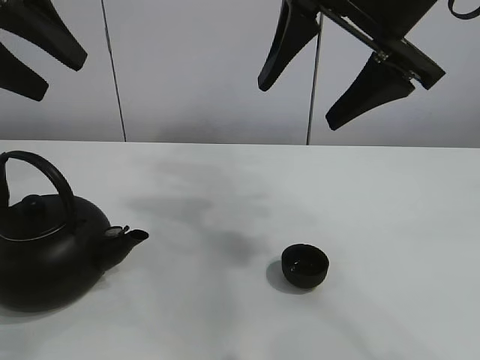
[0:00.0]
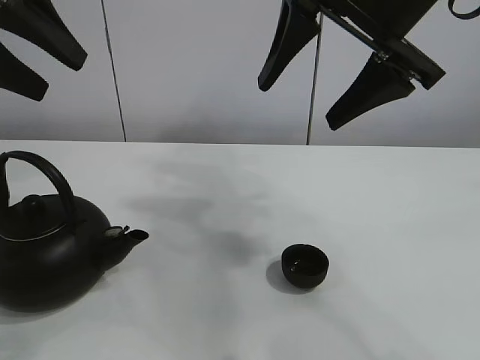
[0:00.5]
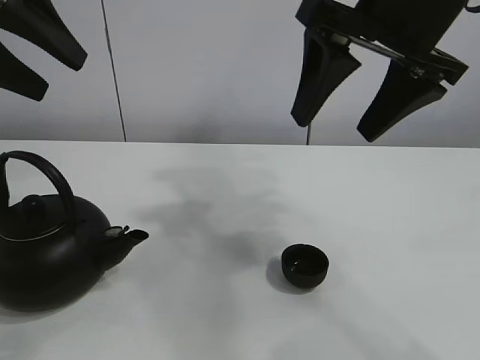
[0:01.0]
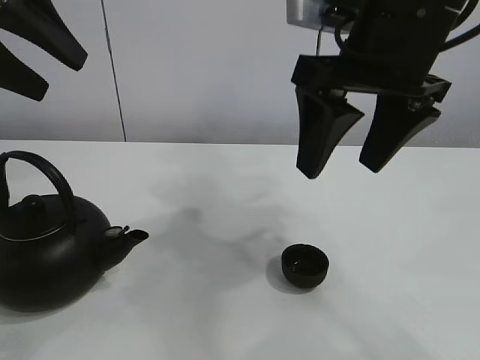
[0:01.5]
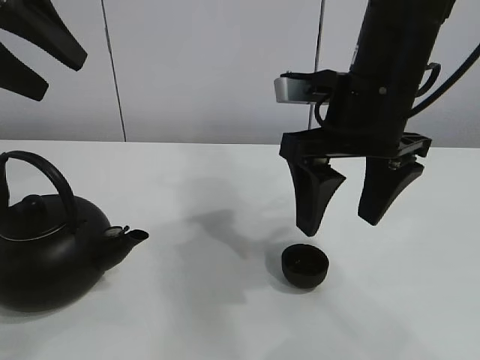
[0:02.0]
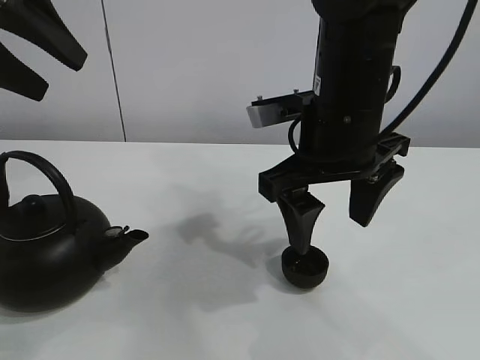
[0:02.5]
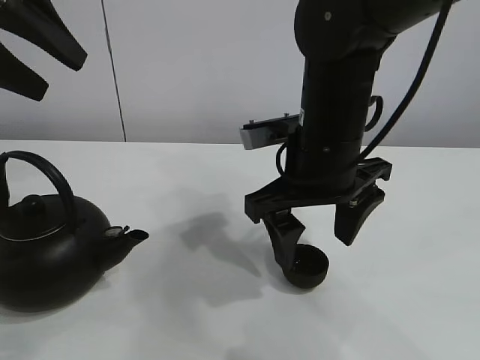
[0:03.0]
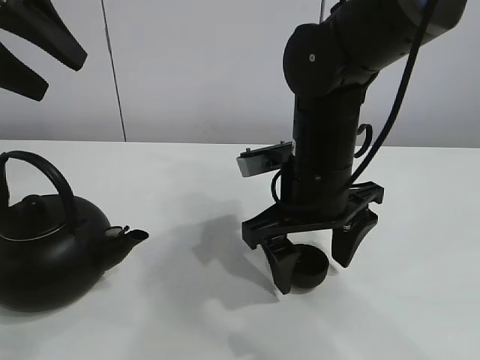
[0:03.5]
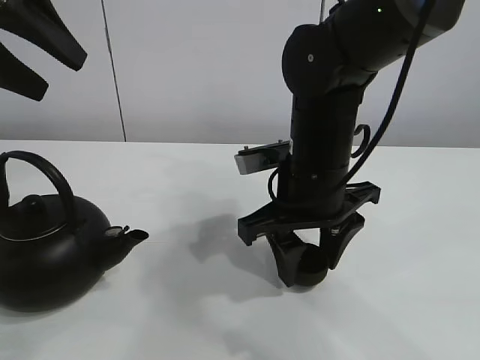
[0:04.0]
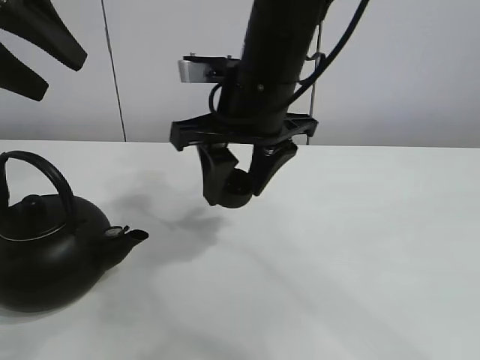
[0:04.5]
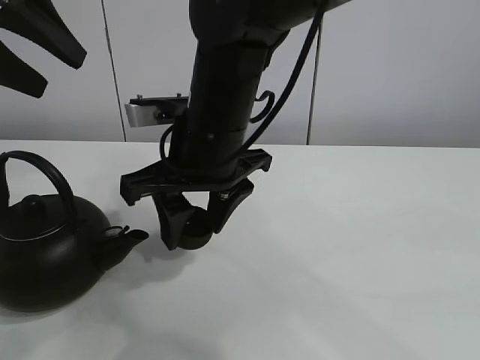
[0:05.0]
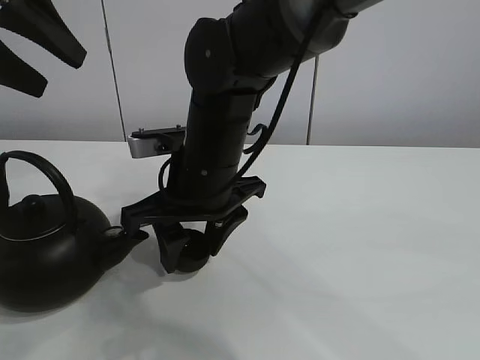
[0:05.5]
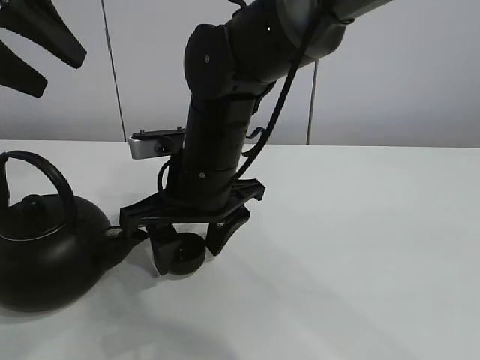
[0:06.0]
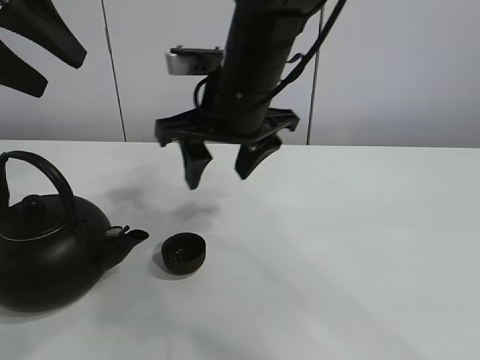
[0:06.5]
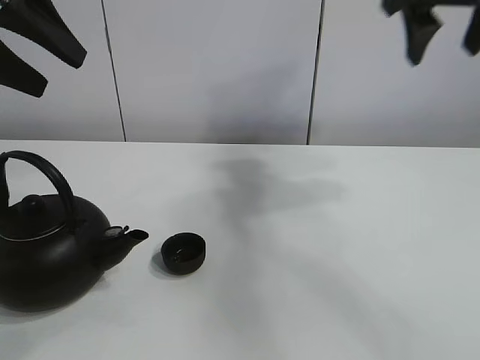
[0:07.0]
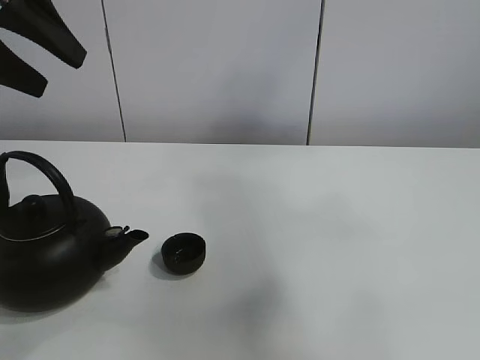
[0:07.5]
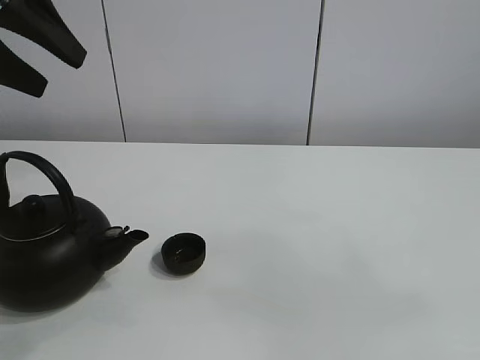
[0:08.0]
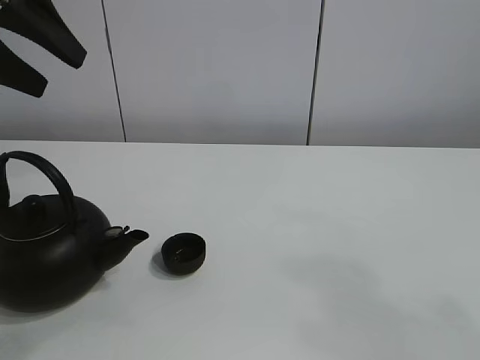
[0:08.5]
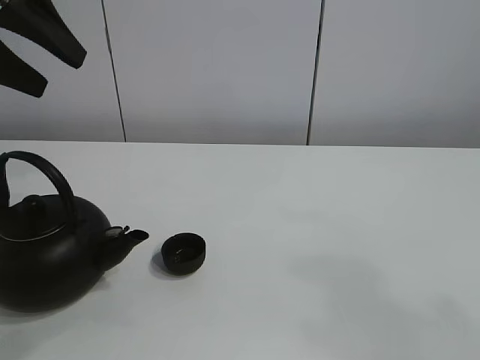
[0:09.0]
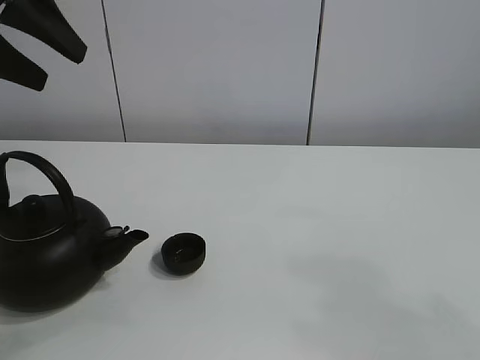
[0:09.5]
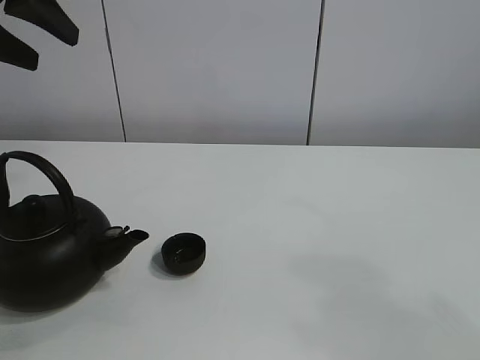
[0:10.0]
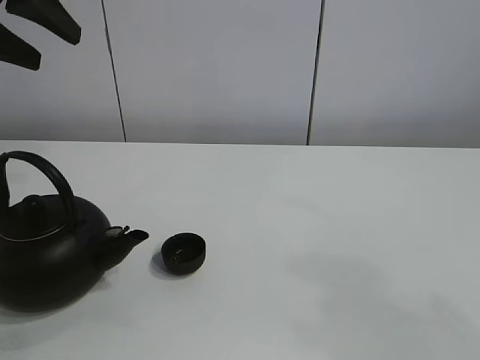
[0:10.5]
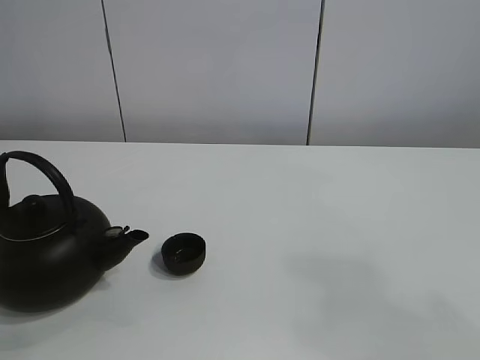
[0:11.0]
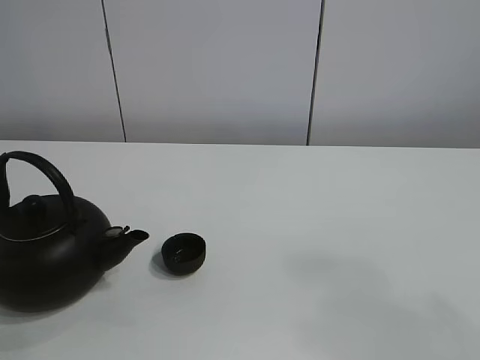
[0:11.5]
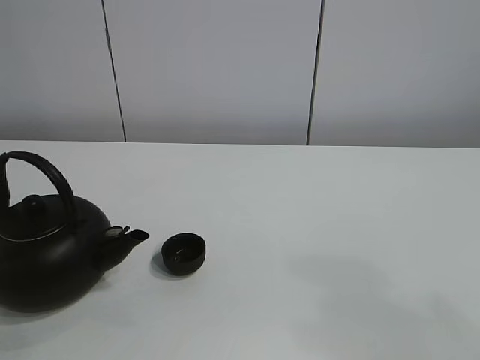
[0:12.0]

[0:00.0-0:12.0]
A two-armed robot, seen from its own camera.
Task of the whole recording: pour tea into the teacup.
Step, 0:00.0 to 0:03.5: Pick up the teacup with the right gripper.
Step, 0:04.5 to 0:05.5: Place the teacup in the center of view with the right gripper.
0:02.0 to 0:04.0: The right gripper heads downward, covering some 10 cm, and closes up.
0:04.0 to 0:06.0: The right gripper is displaced to the left by some 10 cm, and opens.
0:06.0 to 0:08.0: The right gripper travels backward, to the right and upward by some 60 cm.
0:10.0 to 0:12.0: The left gripper travels backward by about 15 cm.

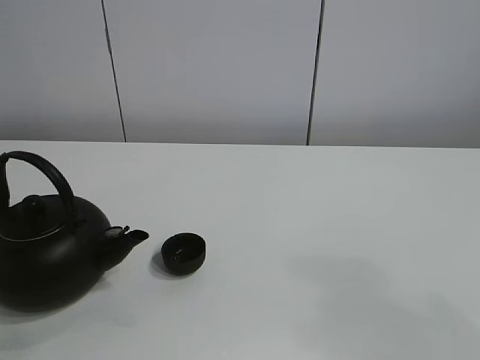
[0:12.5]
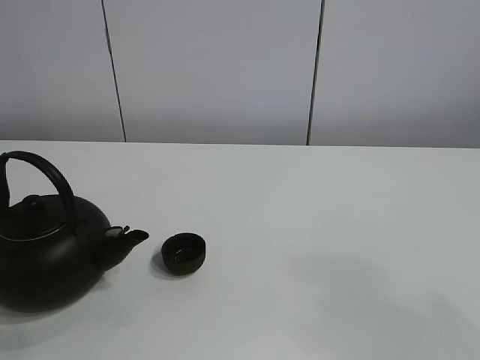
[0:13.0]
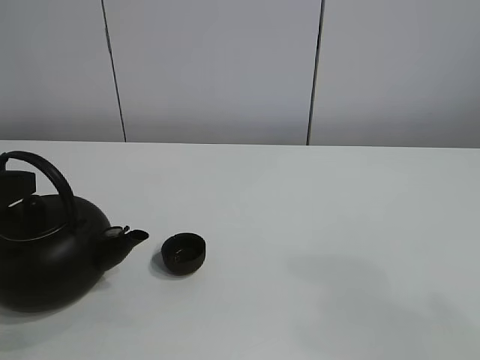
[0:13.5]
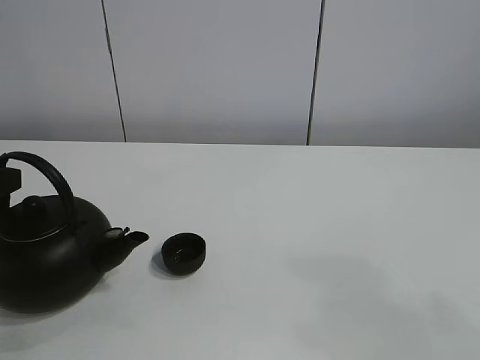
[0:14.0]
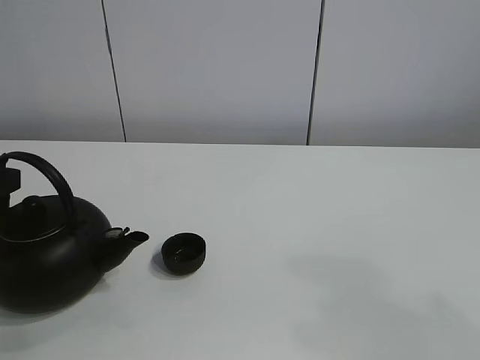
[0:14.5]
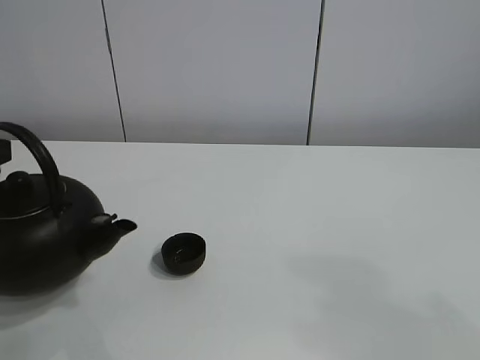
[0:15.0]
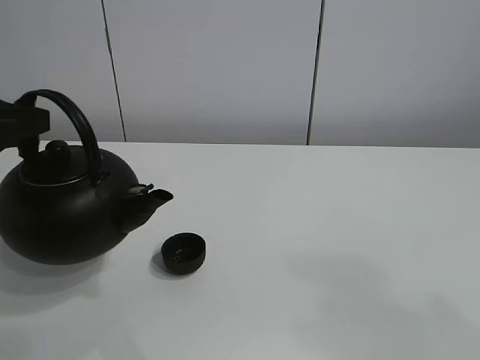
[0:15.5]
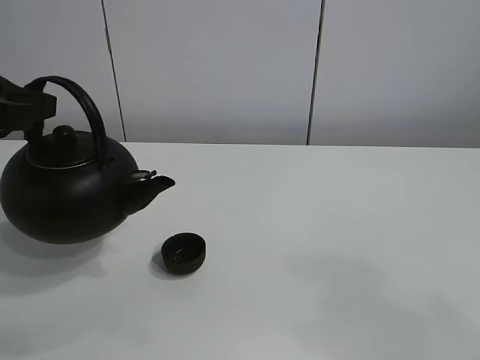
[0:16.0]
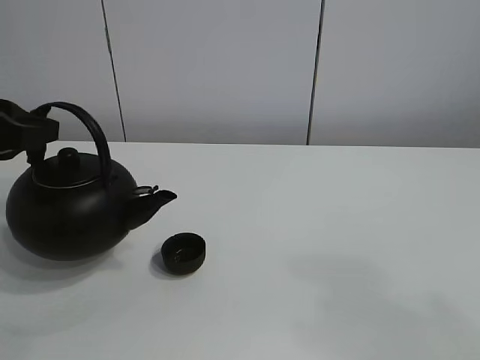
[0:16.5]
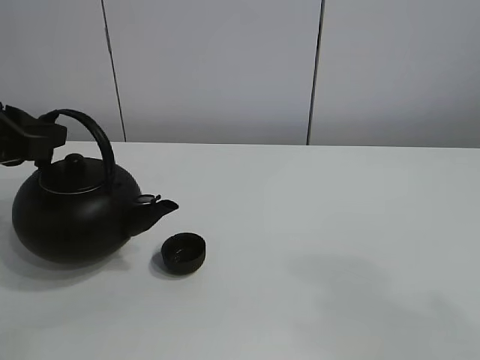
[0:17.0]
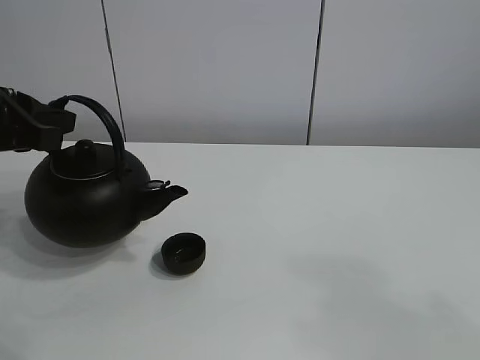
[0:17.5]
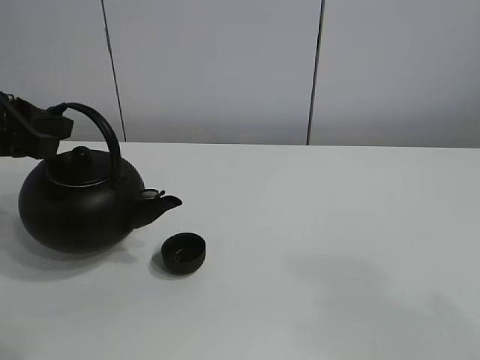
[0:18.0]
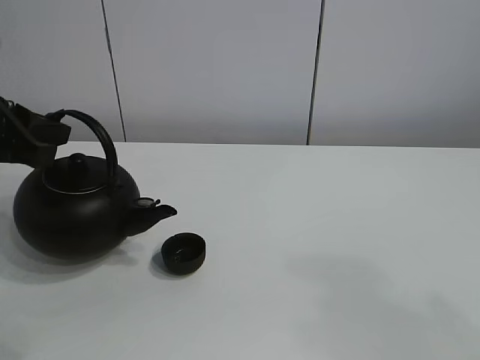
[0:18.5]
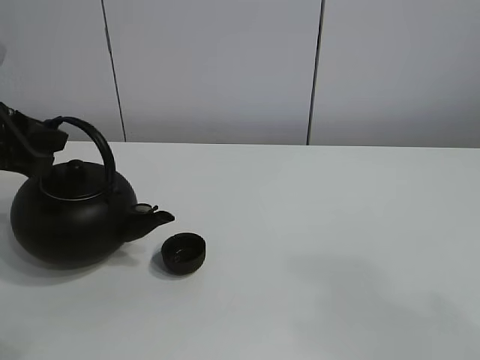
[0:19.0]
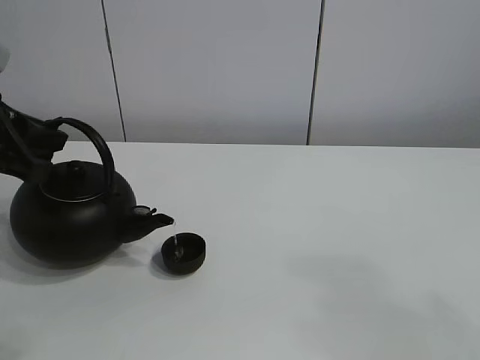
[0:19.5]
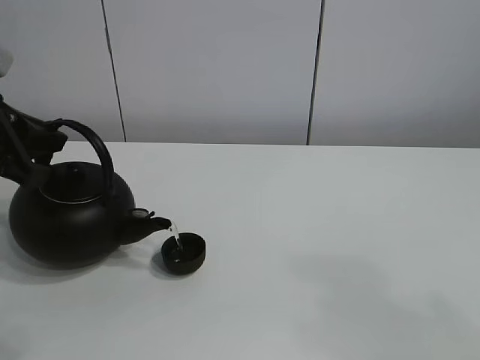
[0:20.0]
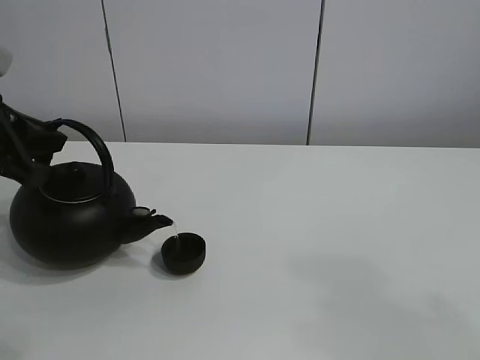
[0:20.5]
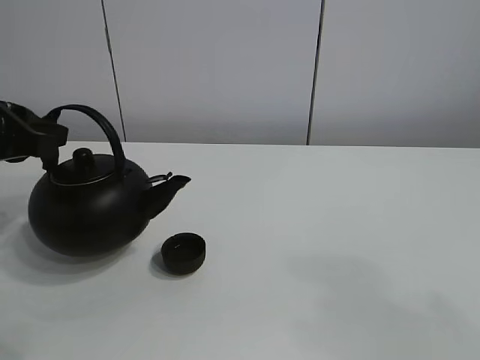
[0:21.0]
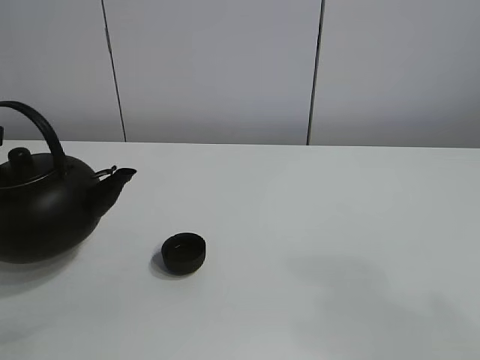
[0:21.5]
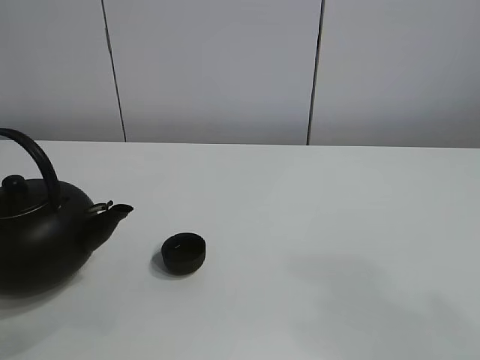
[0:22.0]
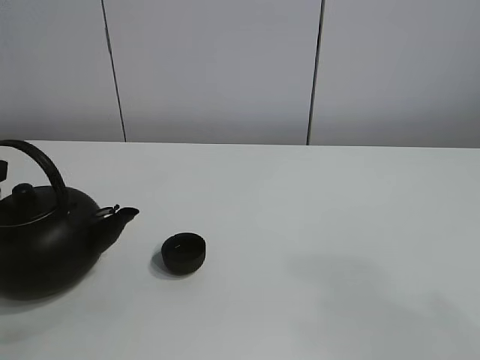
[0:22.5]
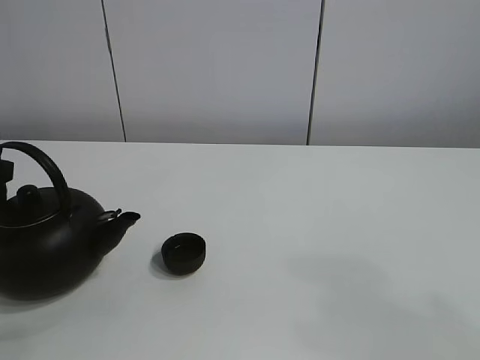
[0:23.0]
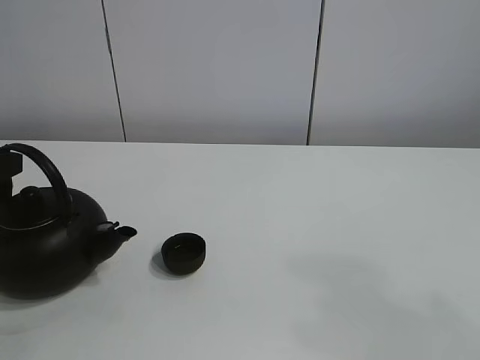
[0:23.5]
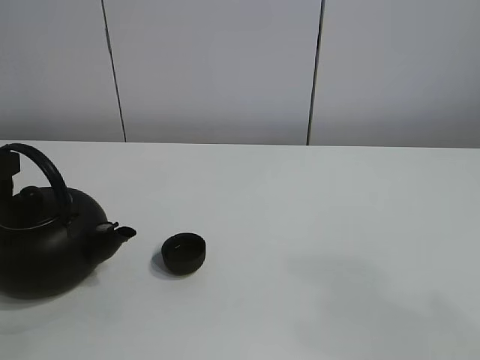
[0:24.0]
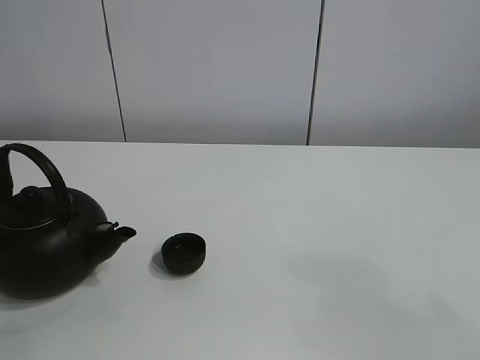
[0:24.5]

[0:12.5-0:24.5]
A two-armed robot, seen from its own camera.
Task of the whole recording: pour tea into the teacup.
Step, 0:15.0 to 0:20.5: Pour tea into the teacup with the left gripper.
0:12.5 to 0:14.5: The left gripper changes place by about 5 cm, and closes.
0:14.5 to 0:16.5: The left gripper moves upward, some 5 cm.
0:16.5 to 0:18.5: The grippers move only a little.
0:18.5 to 0:20.5: The grippers stay close to where they were, moving slightly.
0:20.5 to 0:22.5: The left gripper ends up roughly 5 cm from where it was.
0:22.5 to 0:24.5: The left gripper opens its fingers.

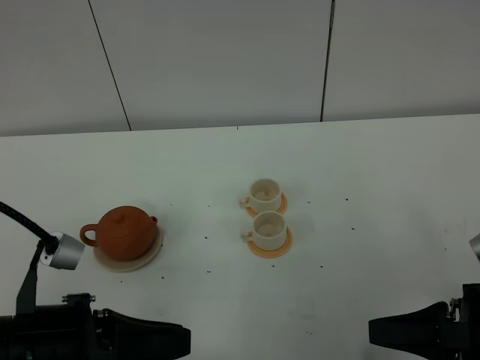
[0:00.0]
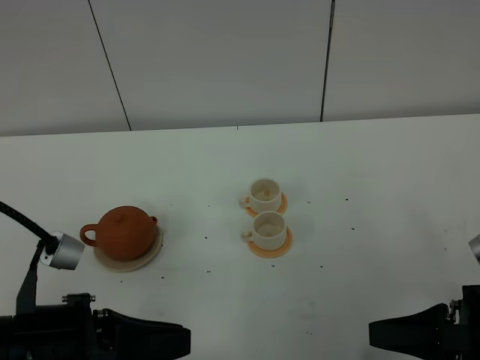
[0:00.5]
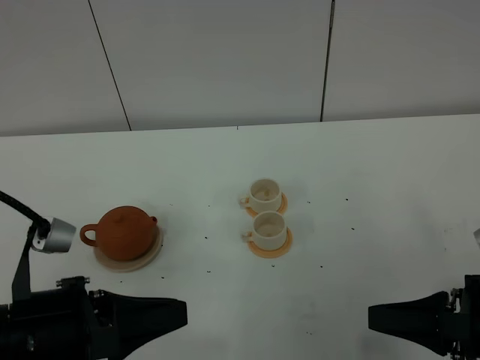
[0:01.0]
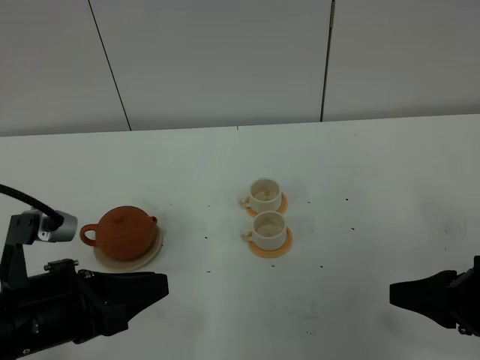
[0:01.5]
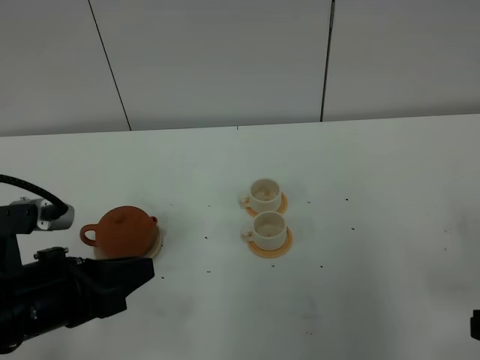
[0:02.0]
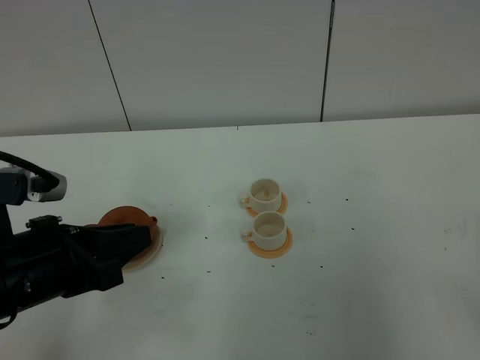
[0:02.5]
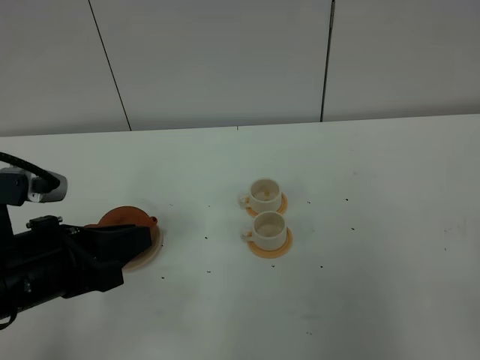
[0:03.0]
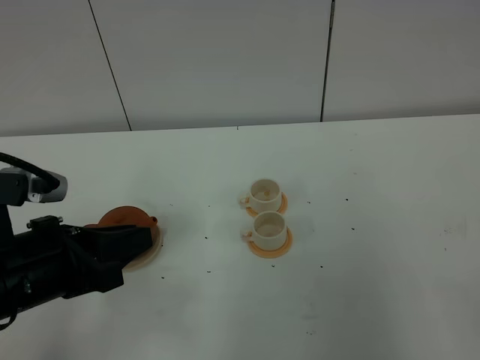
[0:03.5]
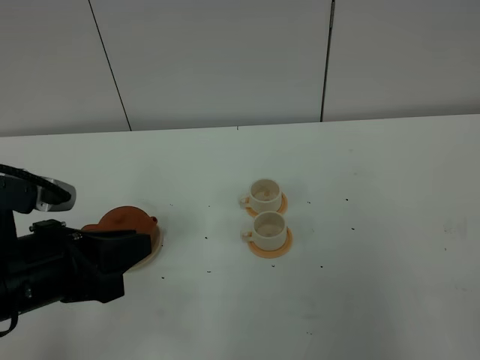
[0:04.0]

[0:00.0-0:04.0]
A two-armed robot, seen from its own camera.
Task of the whole recording: grasp the brown teapot and pour the tea into the two white teacups one by one, put the brown teapot back in its original place.
0:00.0 to 0:02.0: The right gripper ends up roughly 5 cm from where it was.
